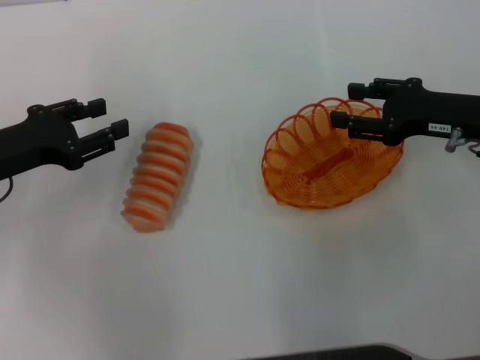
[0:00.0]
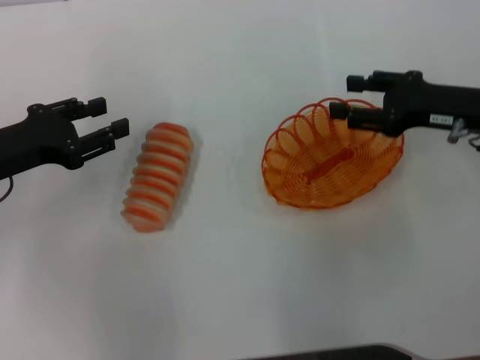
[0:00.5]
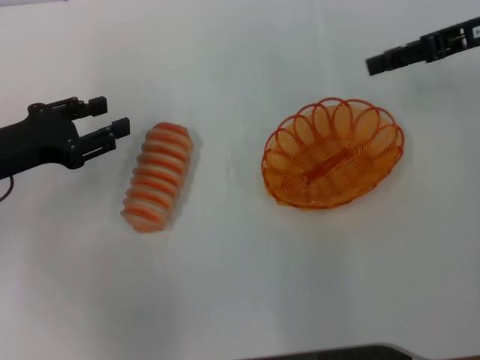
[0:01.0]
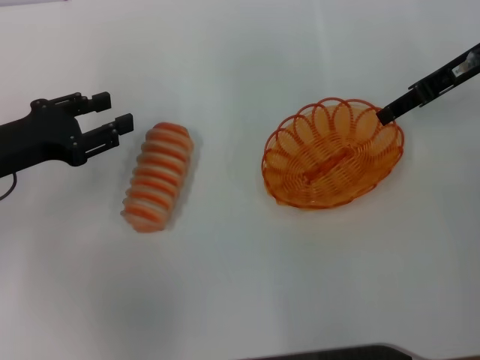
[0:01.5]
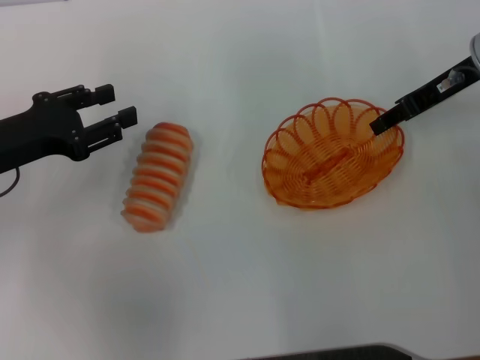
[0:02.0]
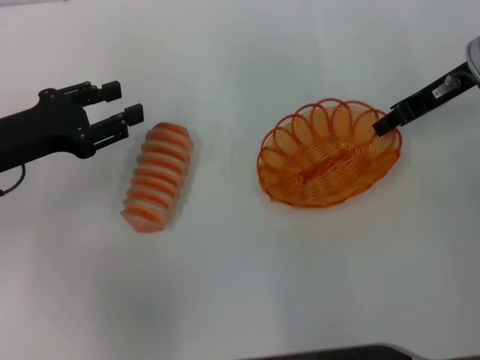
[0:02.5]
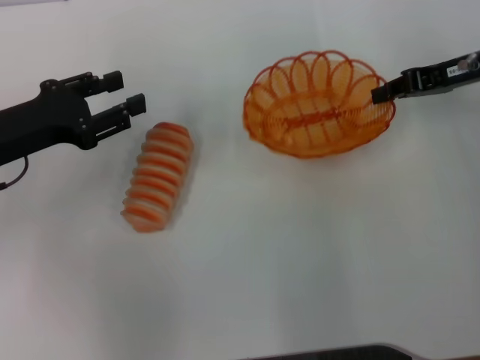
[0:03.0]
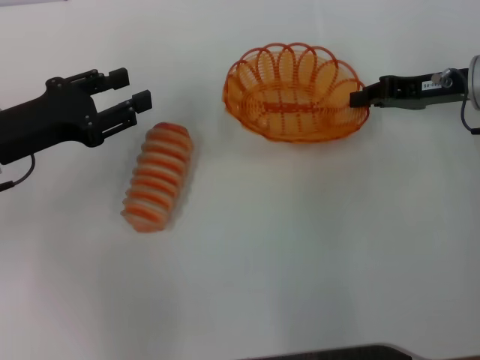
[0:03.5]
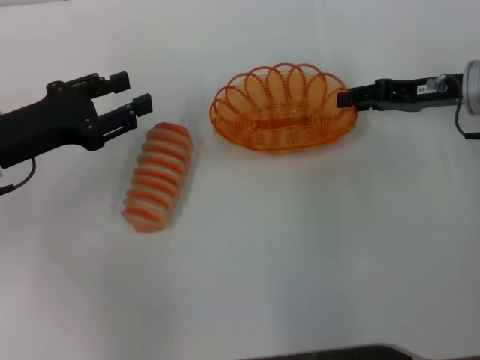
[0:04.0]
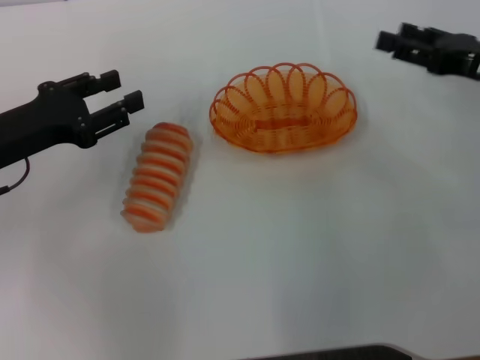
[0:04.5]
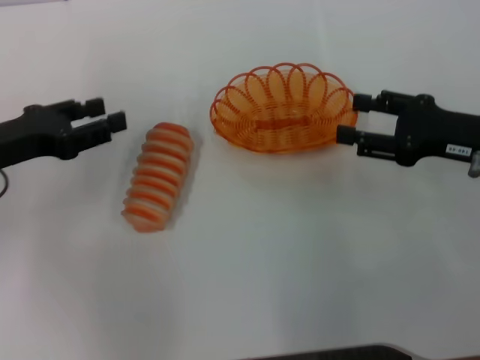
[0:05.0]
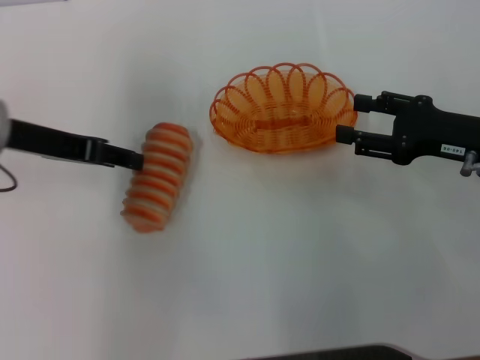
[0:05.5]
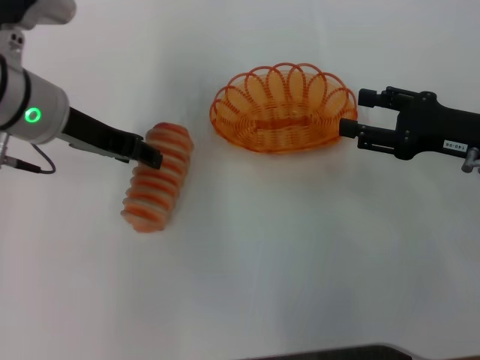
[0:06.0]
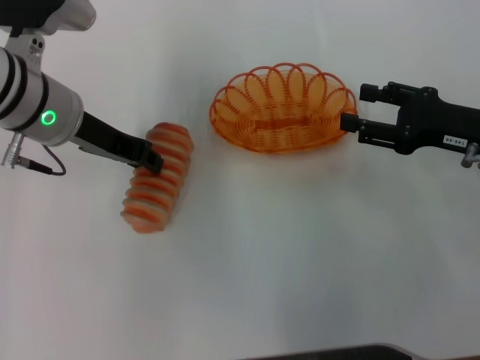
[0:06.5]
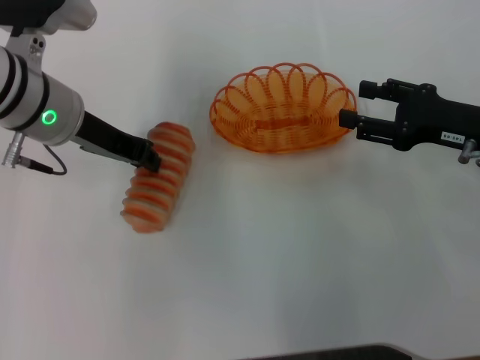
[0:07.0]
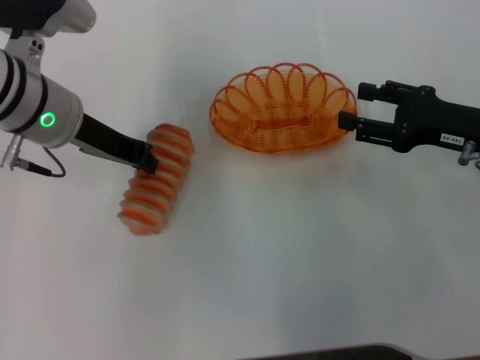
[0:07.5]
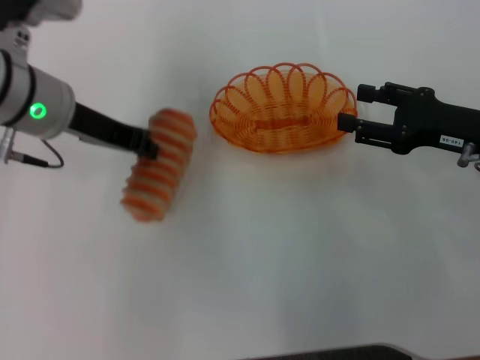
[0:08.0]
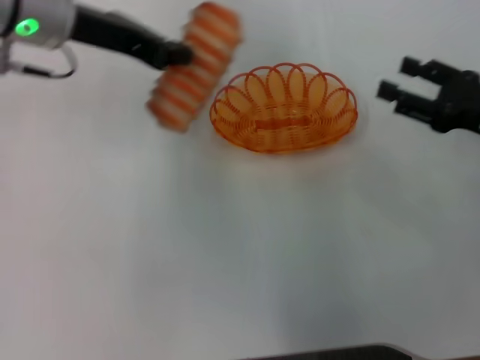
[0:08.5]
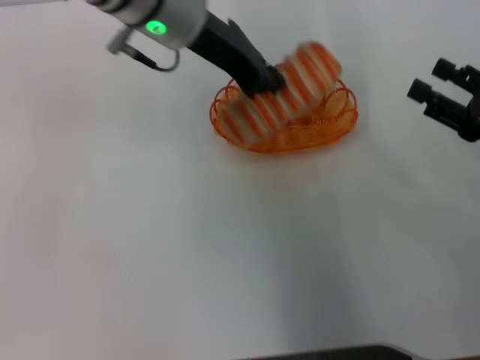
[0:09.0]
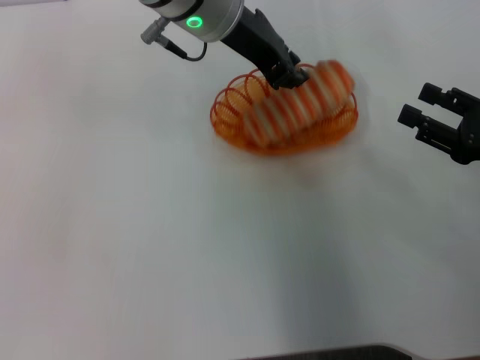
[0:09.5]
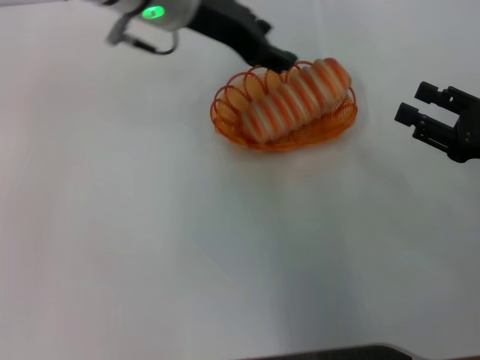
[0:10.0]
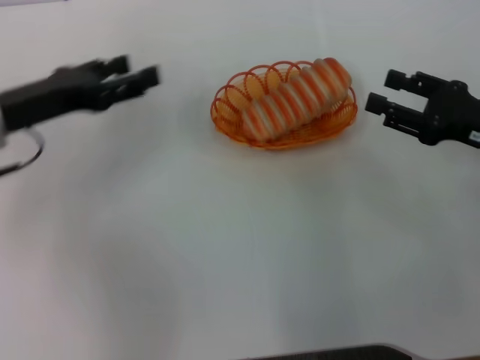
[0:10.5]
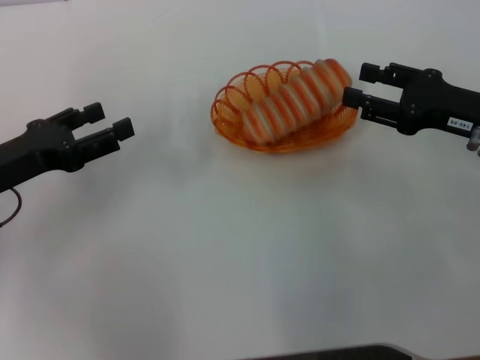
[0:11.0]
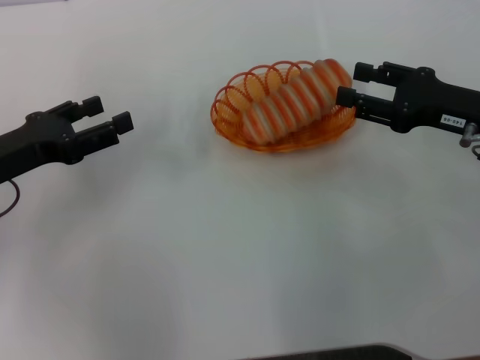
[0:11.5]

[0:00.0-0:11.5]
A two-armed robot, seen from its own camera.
Step, 0.0 to 2.5 s: Pick up the basket with the right gripper.
Step, 3.0 to 4.0 s: Place the basket in the center of view with the right gripper.
Step, 4.5 to 8.0 s: Pick up the long bread with the left gripper.
Step, 8.5 to 10.0 s: Place the basket in the center of view with the left gripper.
0.0 to 2.0 s: The right gripper is displaced forward and upward by approximately 10 cm.
2.0 to 4.0 s: The right gripper changes place by about 5 cm, and closes up.
4.0 to 6.0 s: The left gripper travels to the right, upward and forward by about 10 cm; the right gripper goes about 10 cm backward, and opens up.
6.0 to 7.5 s: The left gripper closes.
7.5 to 9.5 s: The right gripper moves backward, roughly 5 cm. The left gripper moves to the right and upward, about 15 cm.
9.5 to 11.5 s: The right gripper is displaced forward by some 5 cm; the left gripper goes roughly 30 cm to the left, backward and downward, and opens its fingers.

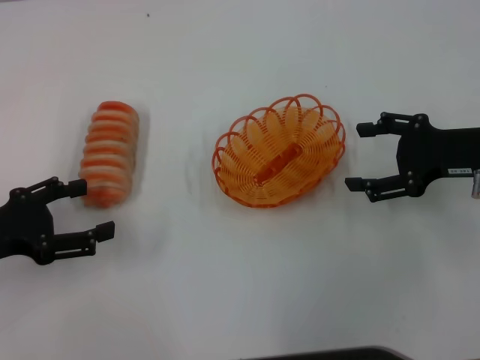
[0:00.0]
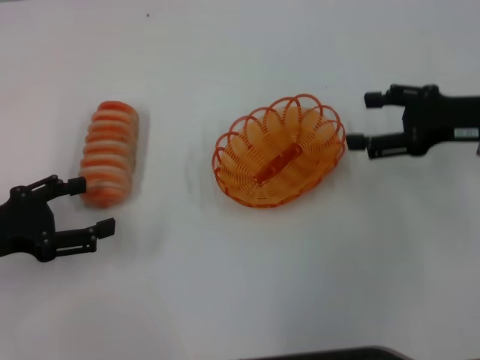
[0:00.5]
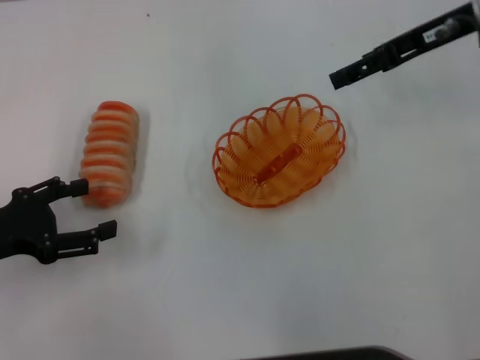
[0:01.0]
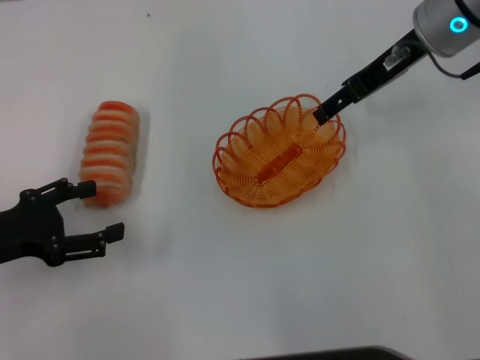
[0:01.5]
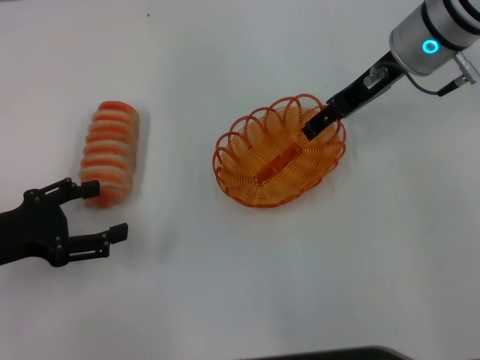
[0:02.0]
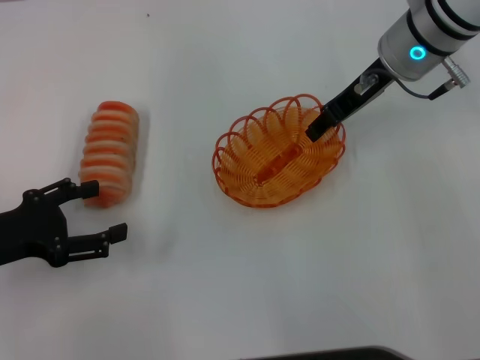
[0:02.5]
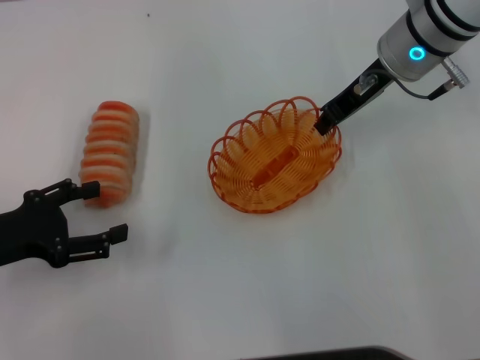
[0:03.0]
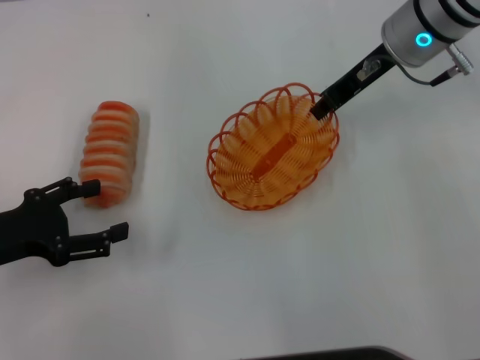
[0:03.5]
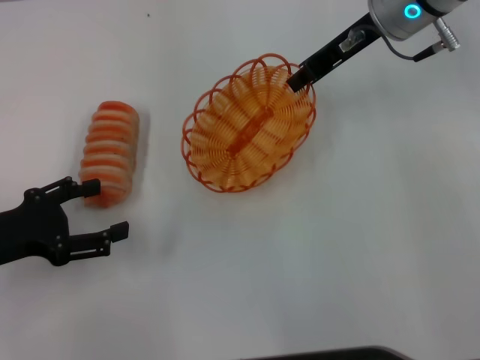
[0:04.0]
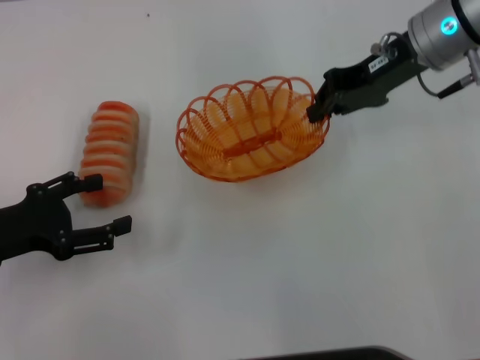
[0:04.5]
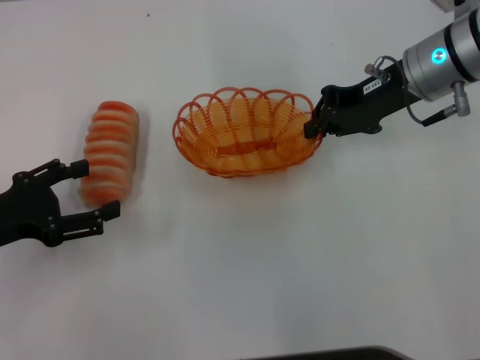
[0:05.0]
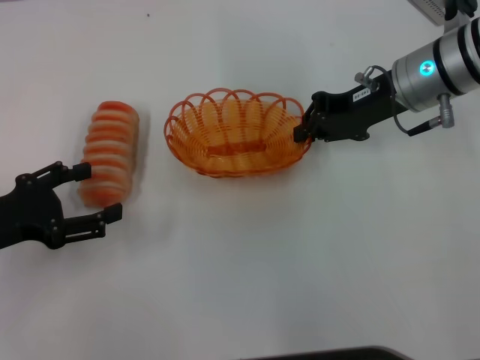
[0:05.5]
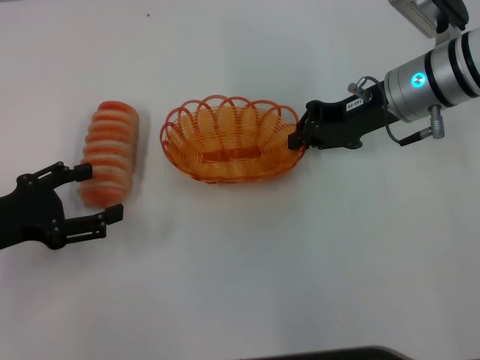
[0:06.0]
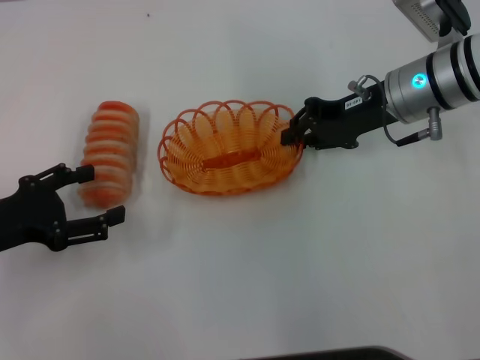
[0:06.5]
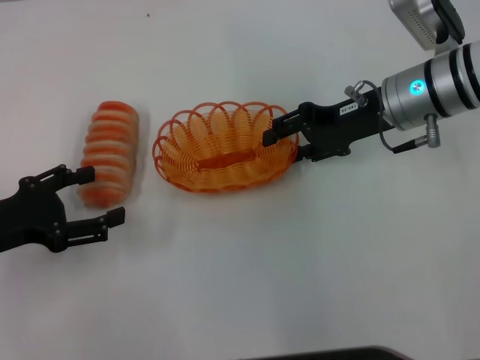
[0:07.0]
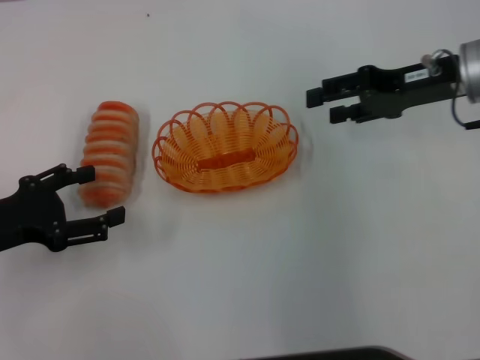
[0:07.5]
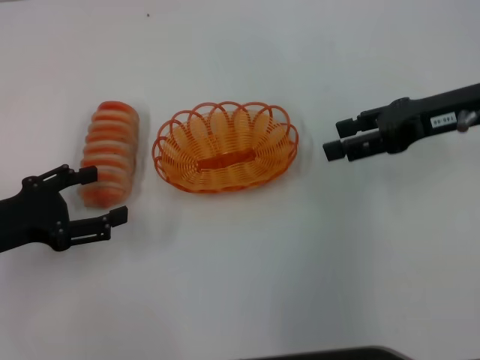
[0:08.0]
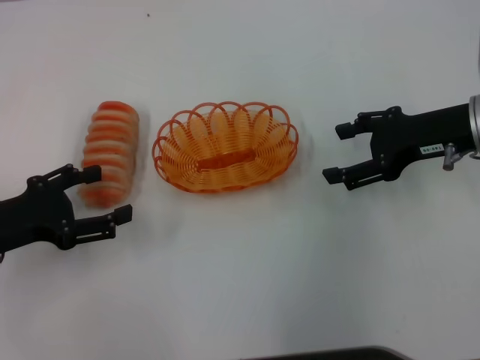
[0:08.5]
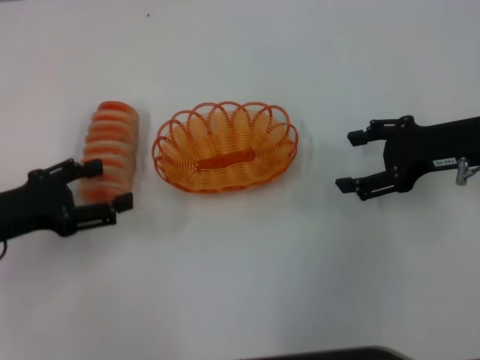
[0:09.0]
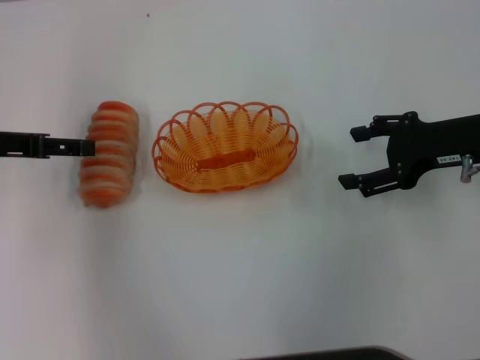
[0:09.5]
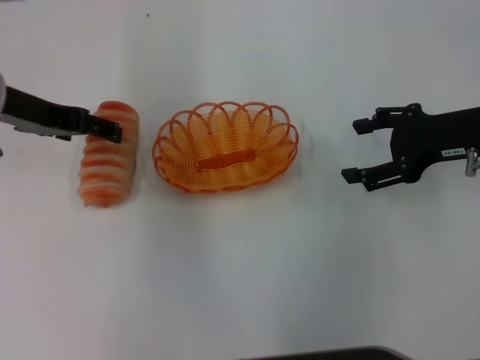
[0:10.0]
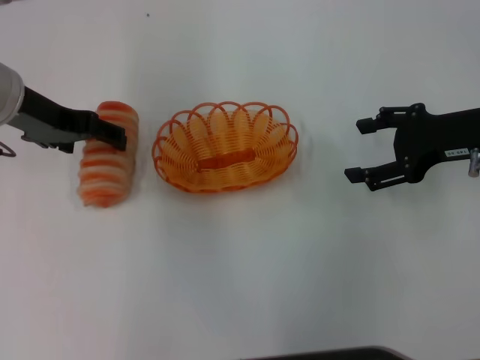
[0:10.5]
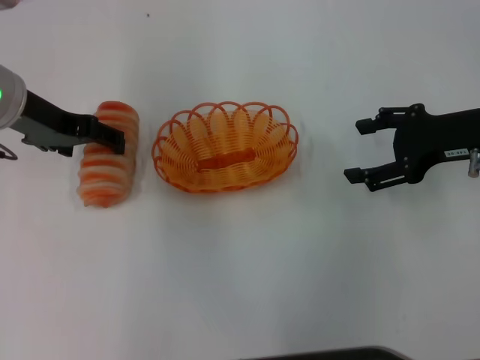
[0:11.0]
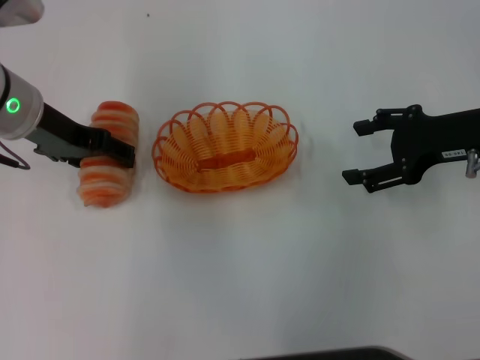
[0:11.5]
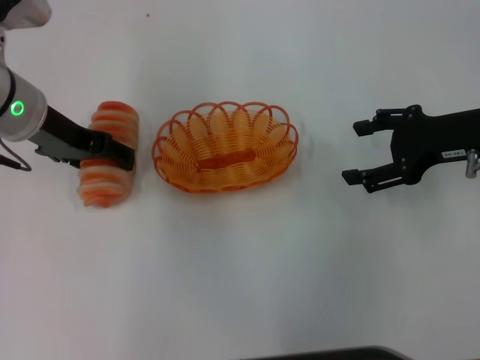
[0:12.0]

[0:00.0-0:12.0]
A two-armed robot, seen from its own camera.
Step, 0.0 to 4.5 s: Pick up the basket with the right gripper.
Step, 5.0 to 7.0 s: Place the basket in the center of view with the right gripper.
0.0 to 2.0 s: The right gripper is displaced forward, to the left and upward by approximately 15 cm.
2.0 to 4.0 s: The right gripper closes up.
4.0 to 6.0 s: The right gripper heads downward, covering about 5 cm.
6.0 to 8.0 s: The right gripper is displaced to the right by roughly 5 cm, and opens up.
8.0 to 10.0 s: The left gripper travels forward, upward and to the right by some 15 cm.
10.0 to 12.0 s: The grippers move only a little.

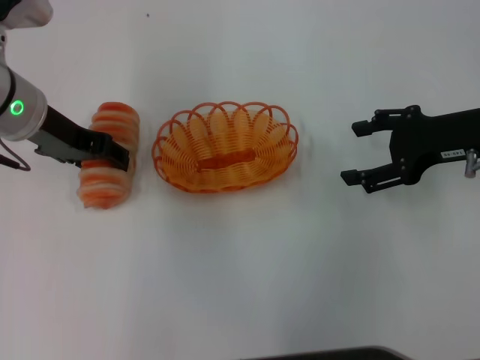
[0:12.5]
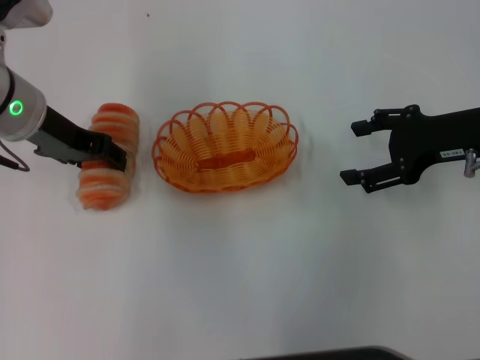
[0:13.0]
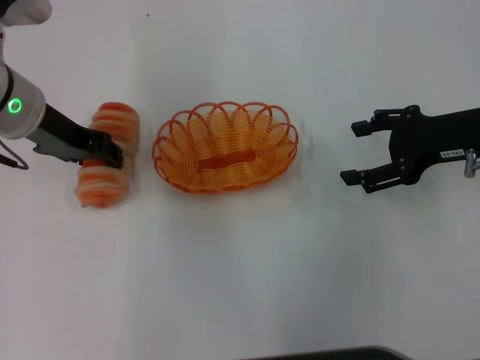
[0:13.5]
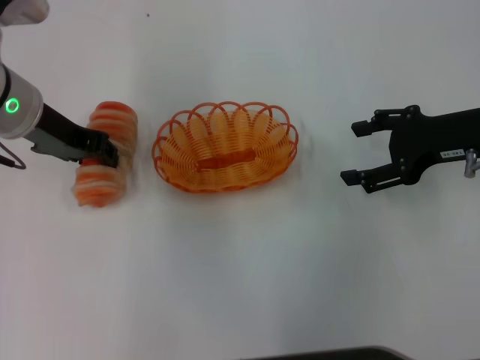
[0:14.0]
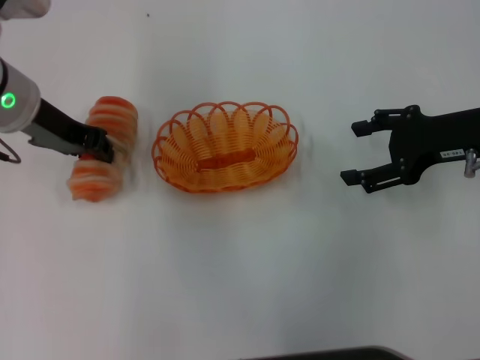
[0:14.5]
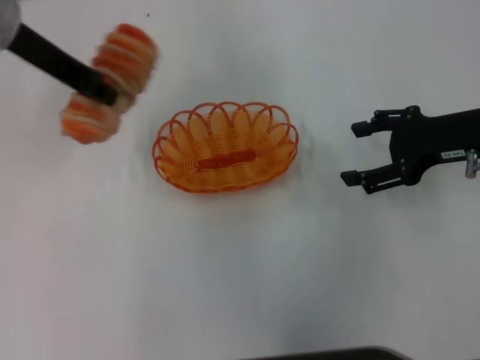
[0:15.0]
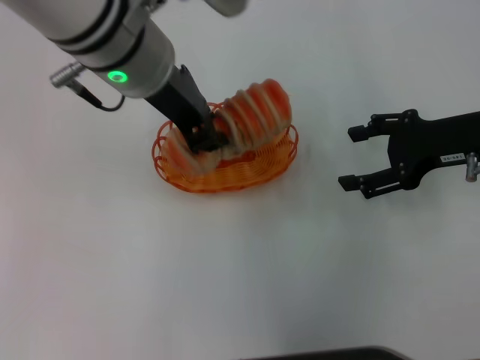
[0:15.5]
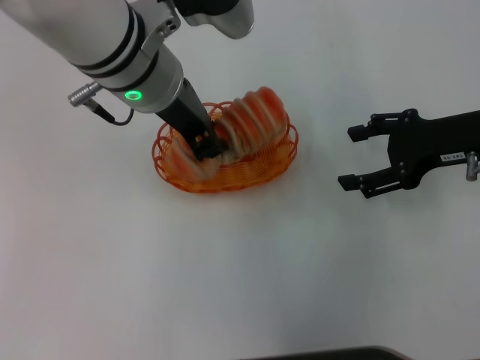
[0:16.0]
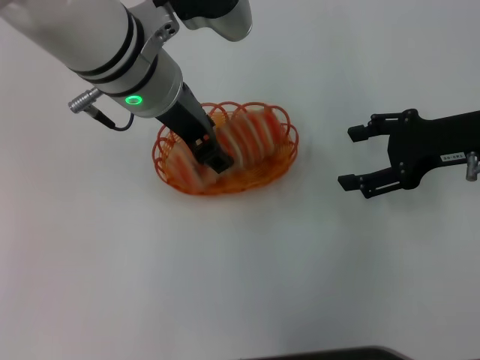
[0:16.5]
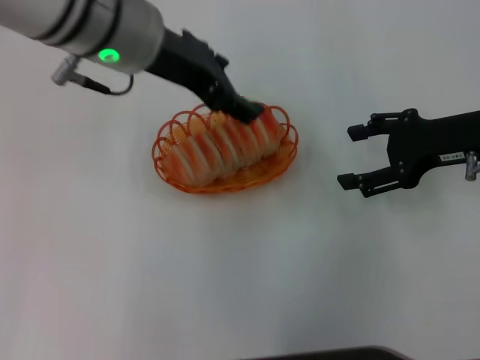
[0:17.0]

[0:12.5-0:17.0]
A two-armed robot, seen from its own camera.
Step, 12.5 to 14.5 s: Pick up the long bread with the left gripper.
Step, 15.5 to 16.5 s: Place the long bread into the basket with the left gripper.
12.5 to 14.5 s: The left gripper closes.
14.5 to 17.0 s: The left gripper goes about 10 cm to the right and upward, and opens.
